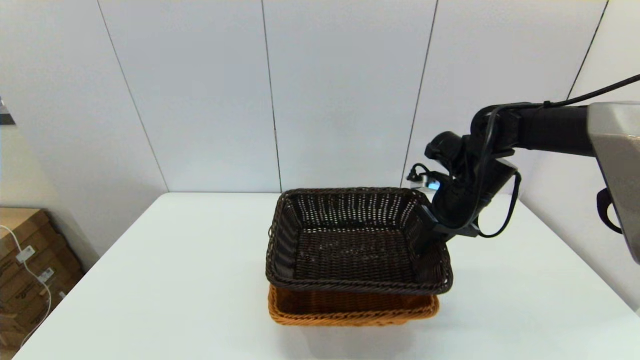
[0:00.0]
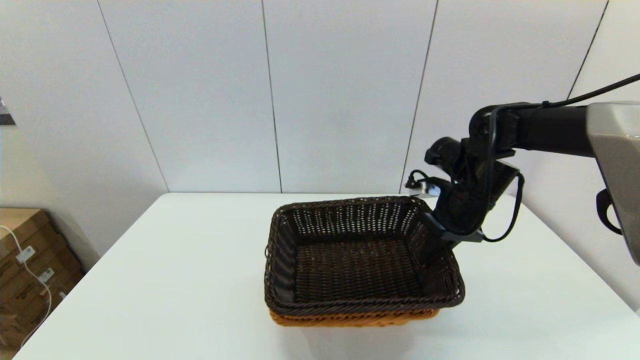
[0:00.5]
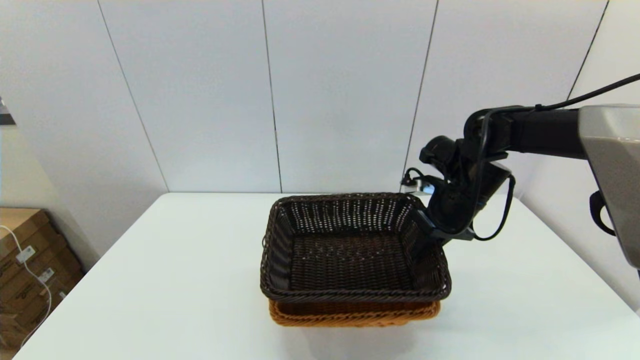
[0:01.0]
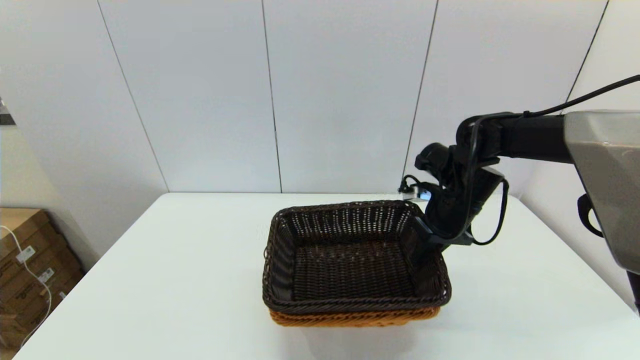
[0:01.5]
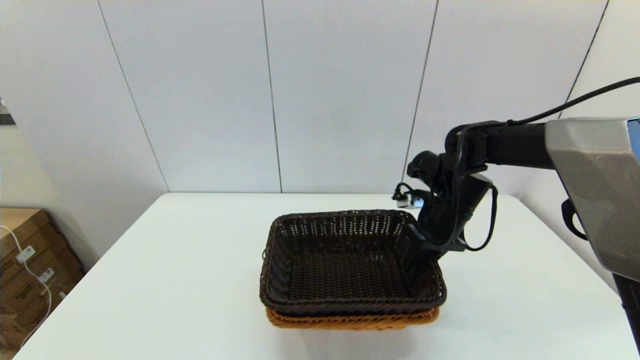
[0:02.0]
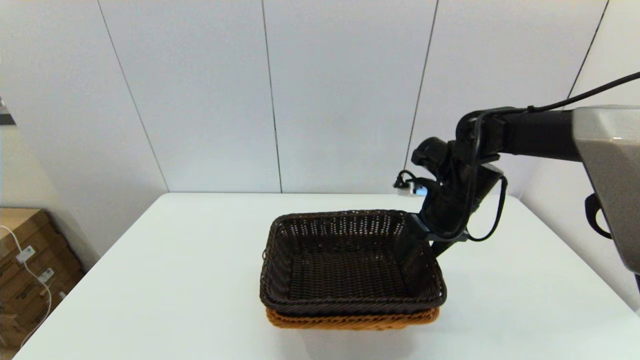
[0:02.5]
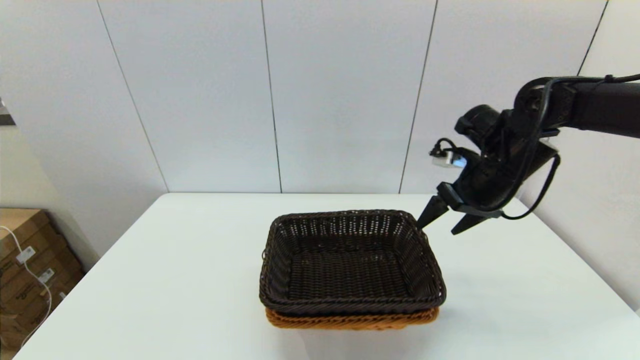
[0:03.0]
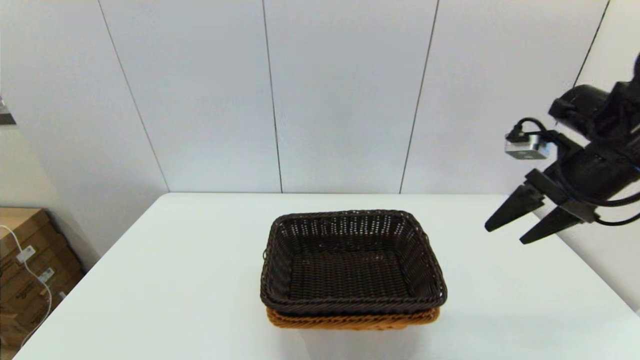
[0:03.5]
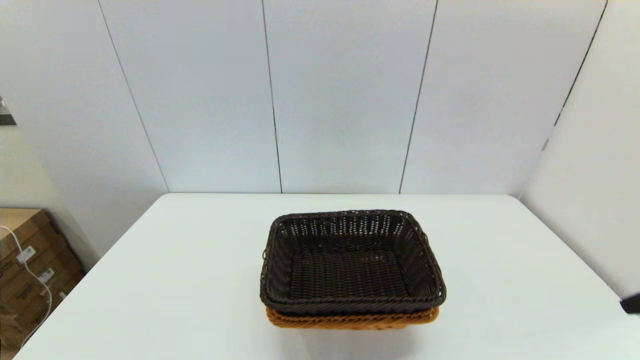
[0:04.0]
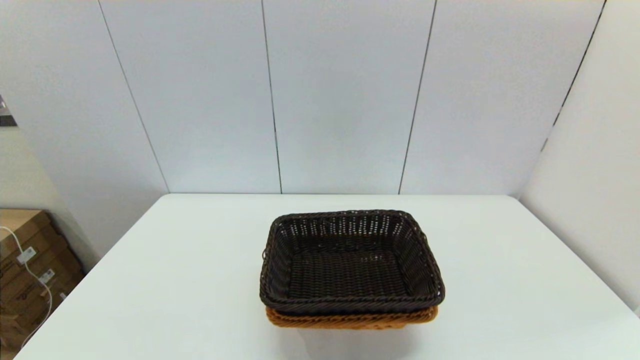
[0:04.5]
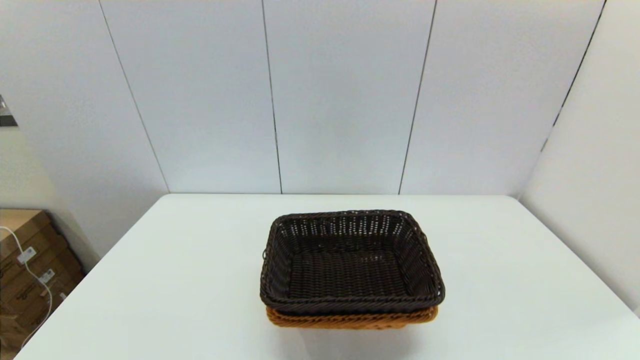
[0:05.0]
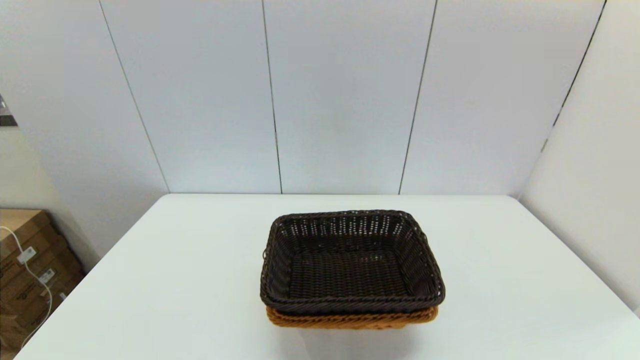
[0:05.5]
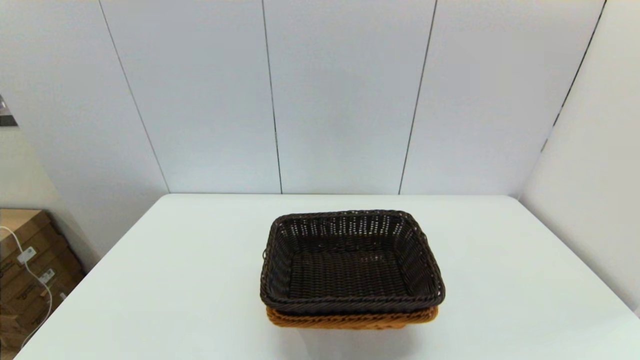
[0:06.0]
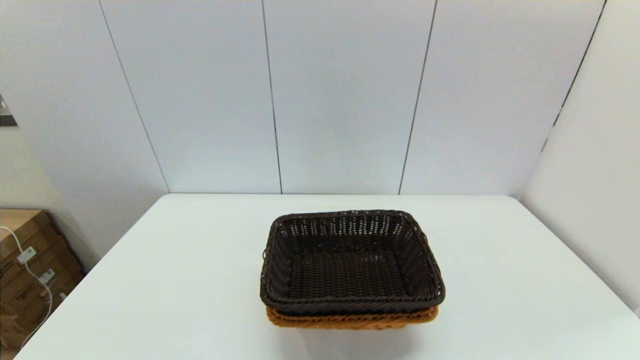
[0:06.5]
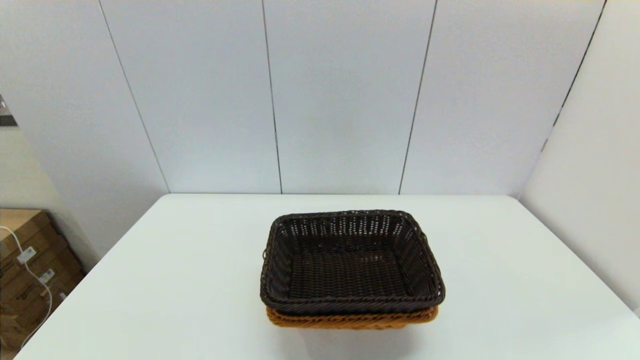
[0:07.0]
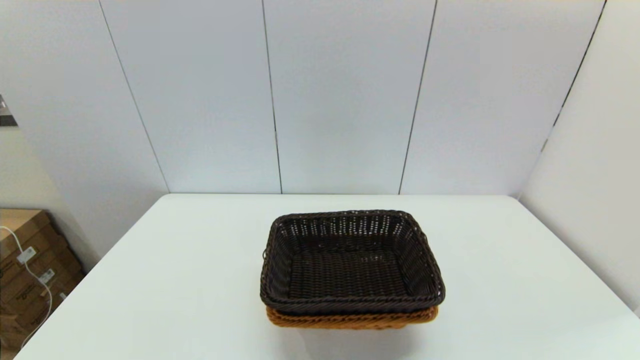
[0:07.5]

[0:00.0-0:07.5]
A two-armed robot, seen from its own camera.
Task of the whole recording: stack a basket on top of another basket.
Step, 0:00.0 to 0:03.0: Place the dark basket into the light color basket with the right gripper.
0:00.0 to 0:02.0: The grippers stay close to where they were, moving slightly.
0:02.0 to 0:04.0: The right gripper heads backward, upward and to the right, covering approximately 35 cm, and opens.

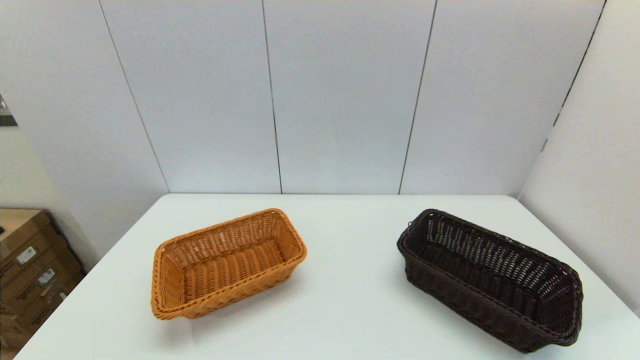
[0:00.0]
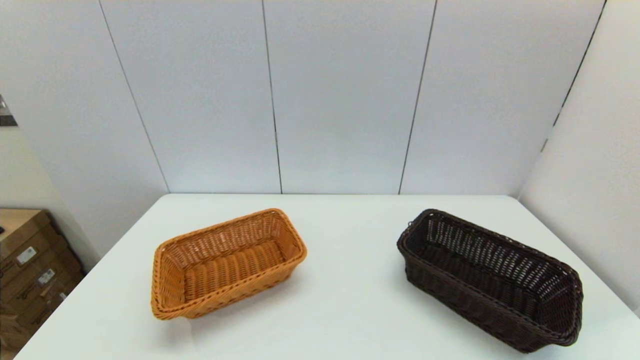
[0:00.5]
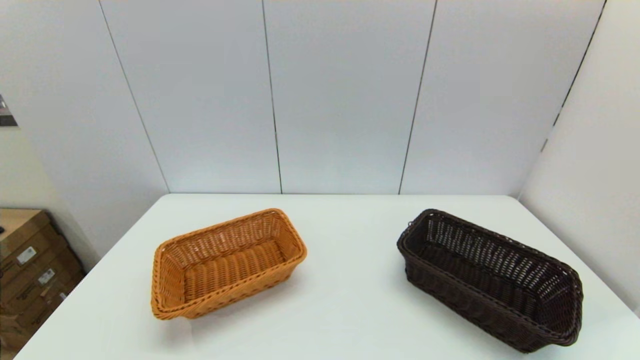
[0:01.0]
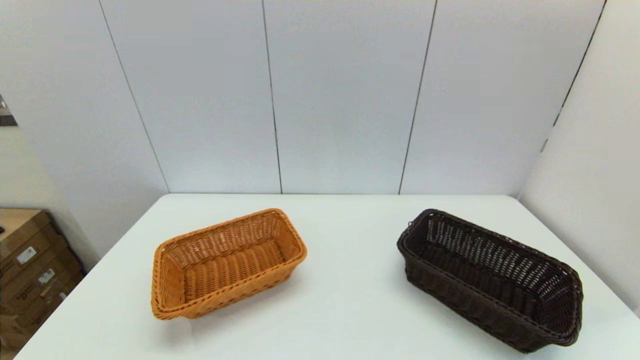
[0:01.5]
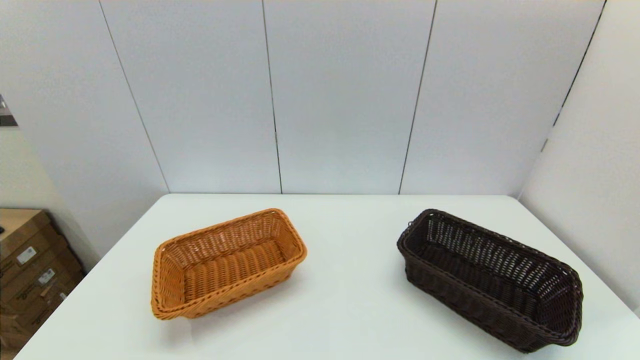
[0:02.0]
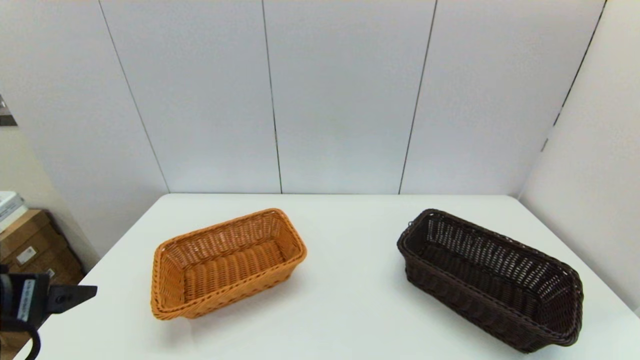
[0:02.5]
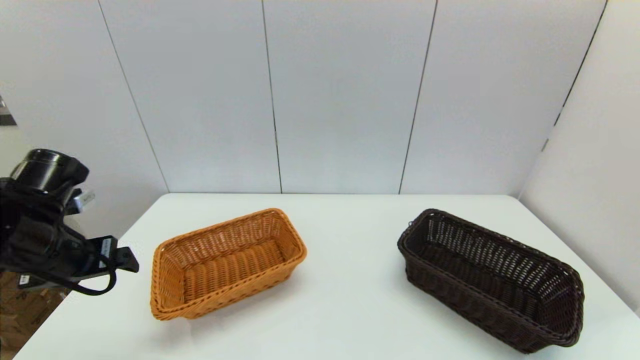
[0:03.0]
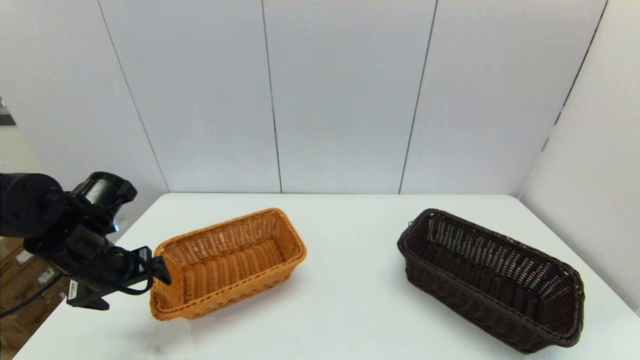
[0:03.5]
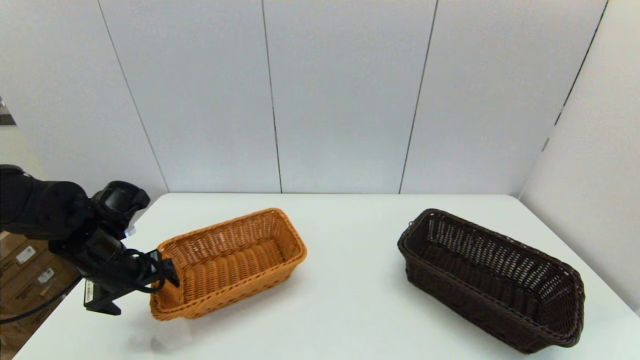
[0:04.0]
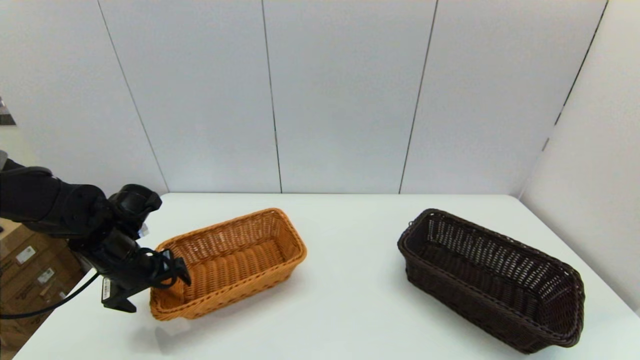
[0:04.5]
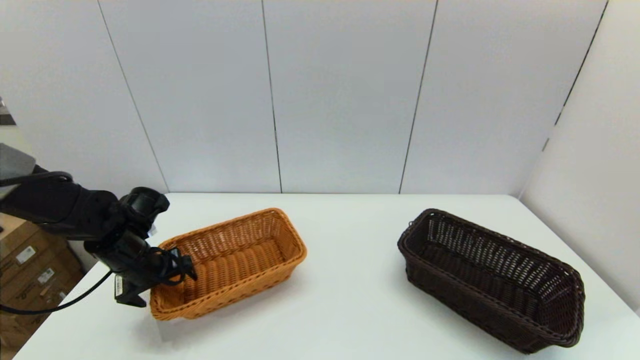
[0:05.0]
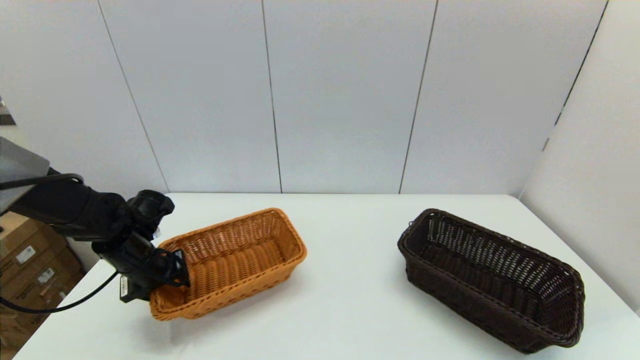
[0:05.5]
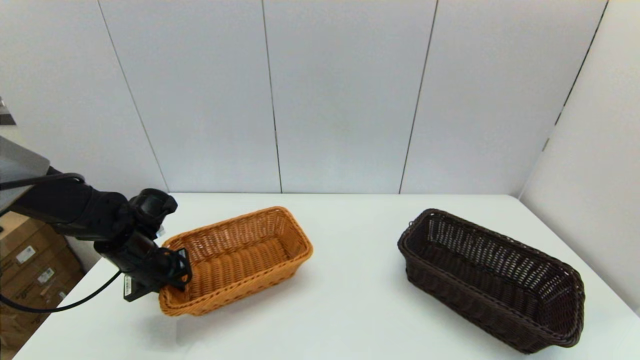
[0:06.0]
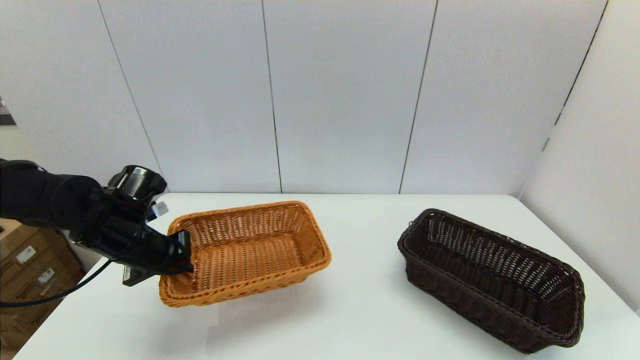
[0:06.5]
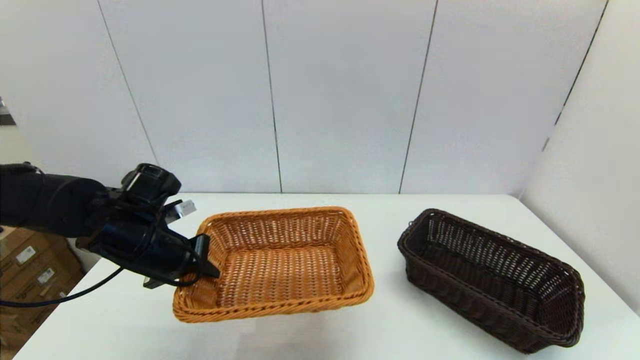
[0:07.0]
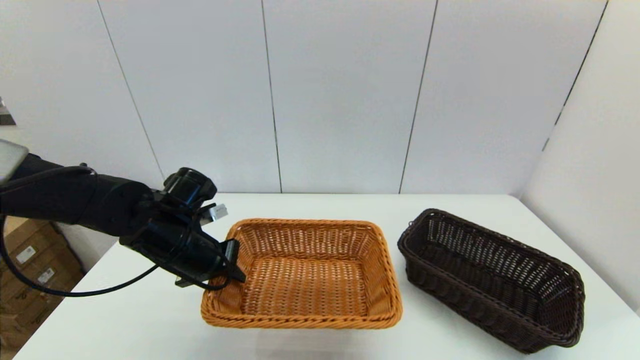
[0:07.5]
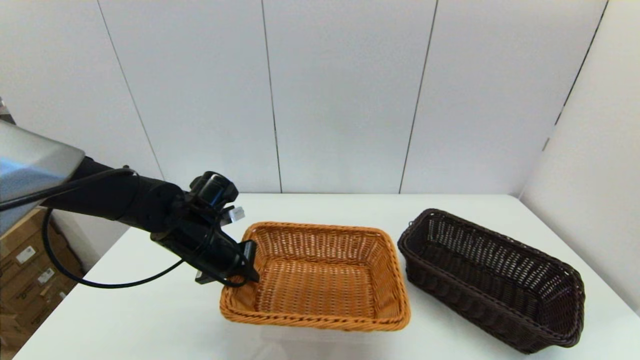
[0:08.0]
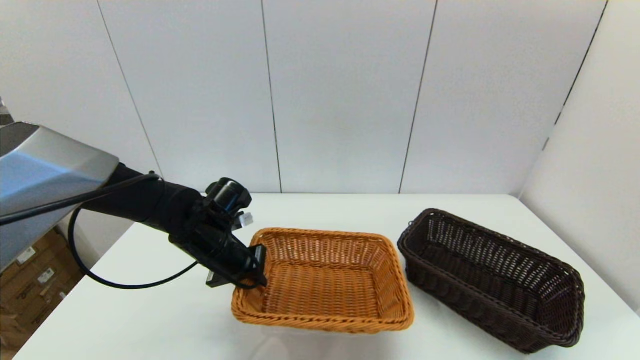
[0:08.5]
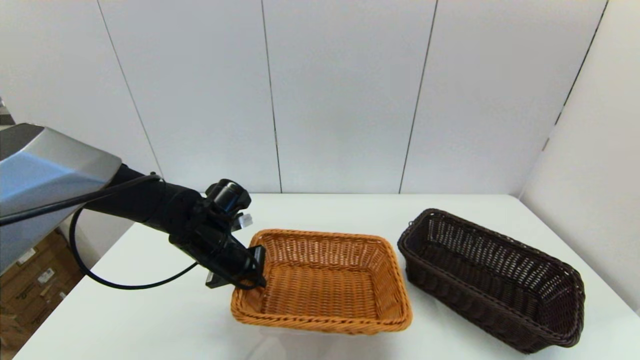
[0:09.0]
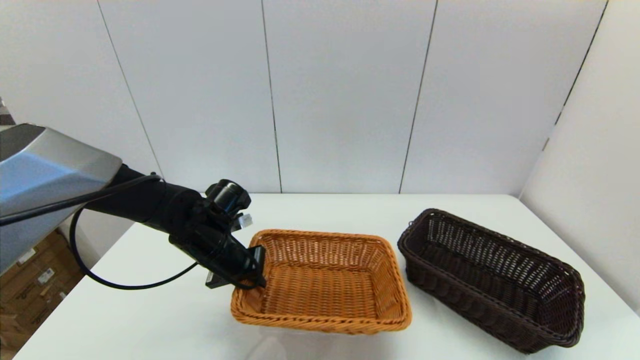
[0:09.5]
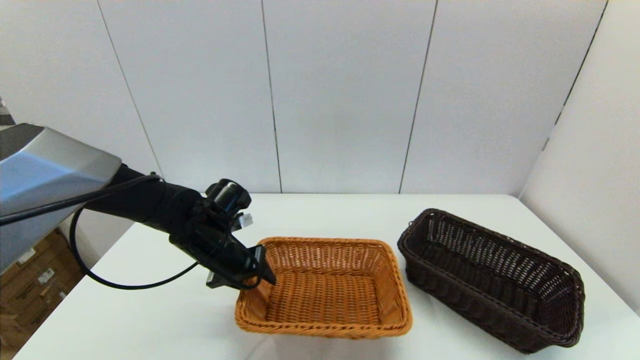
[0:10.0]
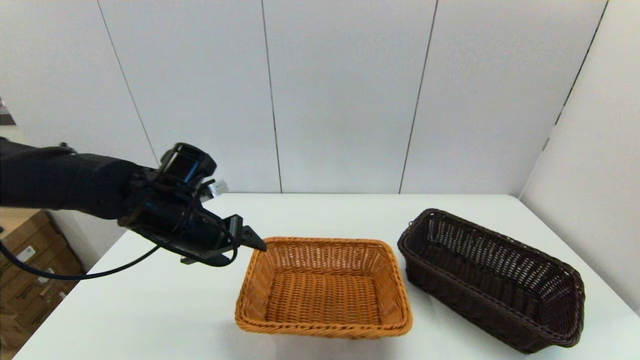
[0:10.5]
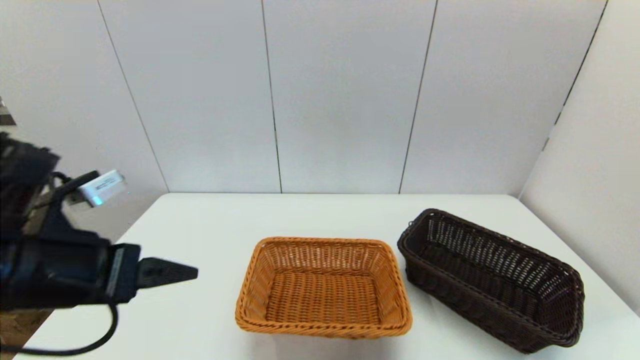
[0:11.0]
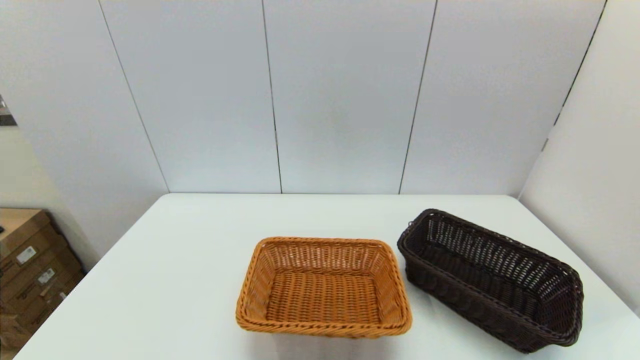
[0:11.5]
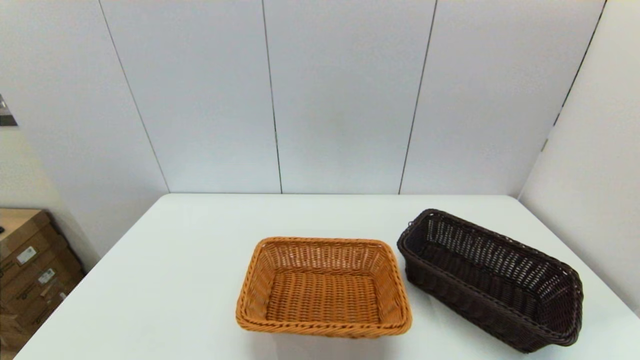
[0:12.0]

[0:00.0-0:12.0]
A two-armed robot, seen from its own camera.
Task of the whole recording: stack a basket on top of another basket.
Step, 0:02.5 to 0:06.0: Grasp the light basket with the left gripper.
Step, 0:06.5 to 0:10.0: Place the light basket on the middle of the table with the left gripper.
0:02.0 to 0:04.0: The left gripper shifts approximately 30 cm forward.
0:04.0 to 0:06.0: The left gripper moves some 5 cm, and closes up.
0:06.0 to 0:08.0: The left gripper travels to the right by approximately 10 cm.
0:08.0 to 0:10.0: The left gripper opens.
0:10.0 to 0:12.0: The left gripper travels backward by roughly 35 cm, and opens its fingers.
